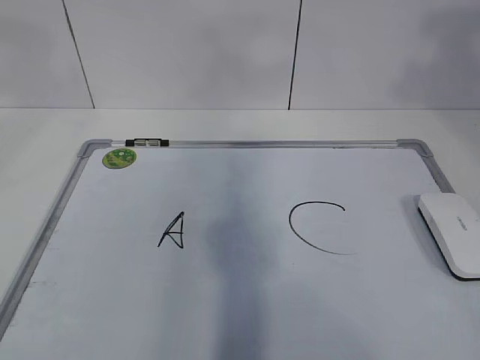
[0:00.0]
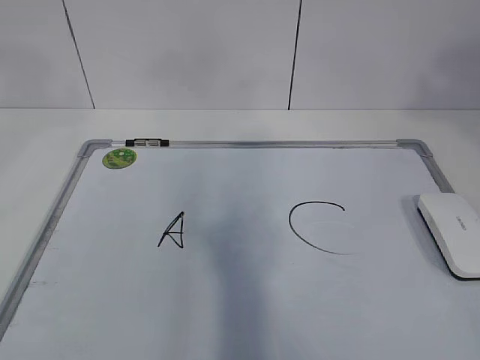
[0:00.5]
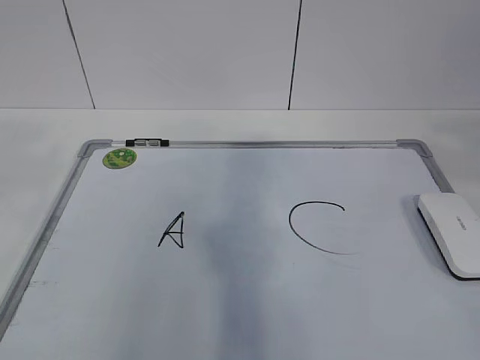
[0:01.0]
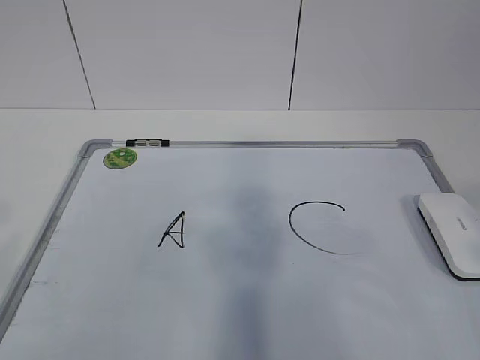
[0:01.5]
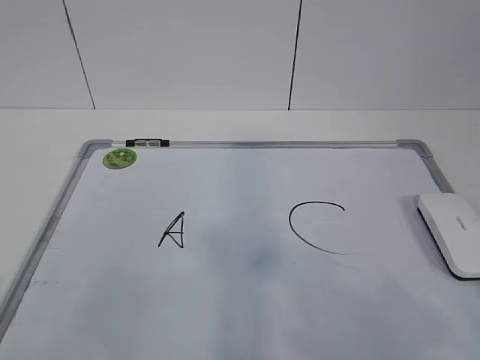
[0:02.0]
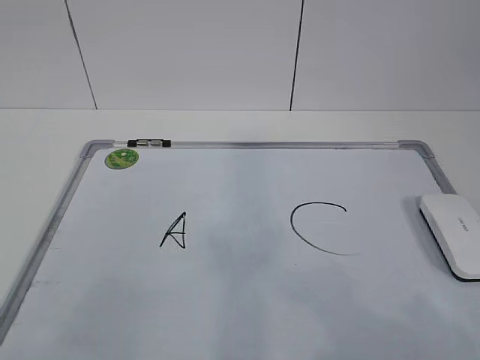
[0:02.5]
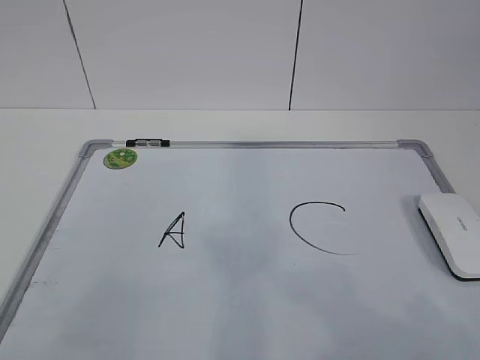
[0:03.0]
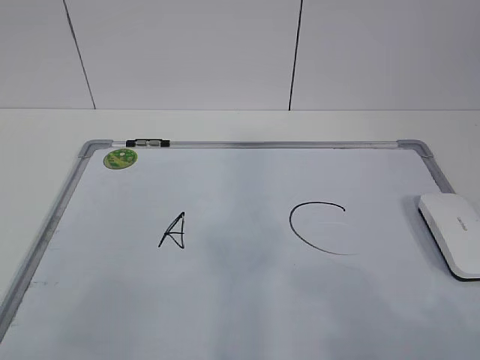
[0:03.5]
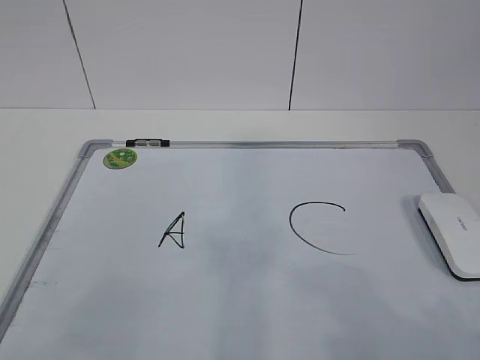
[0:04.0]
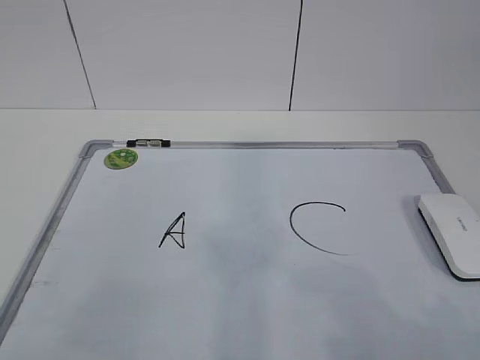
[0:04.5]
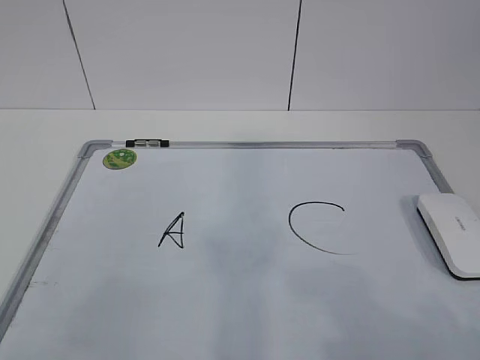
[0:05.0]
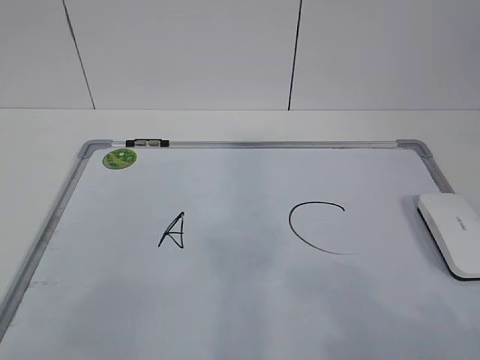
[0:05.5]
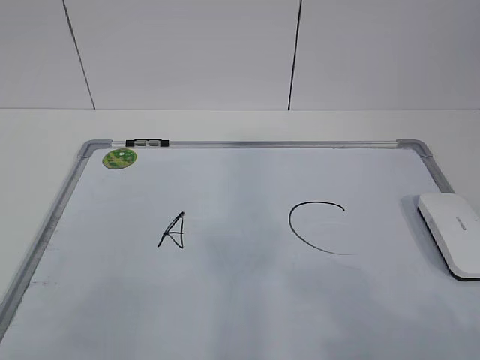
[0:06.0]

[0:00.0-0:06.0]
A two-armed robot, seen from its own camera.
Task of the whole recording: pick up the eraser on the blackboard and erase the letter "B".
0:00.0 to 0:02.0: Both grippers move backward and downward, about 30 cm.
0:04.0 to 0:06.0: Both grippers stay put.

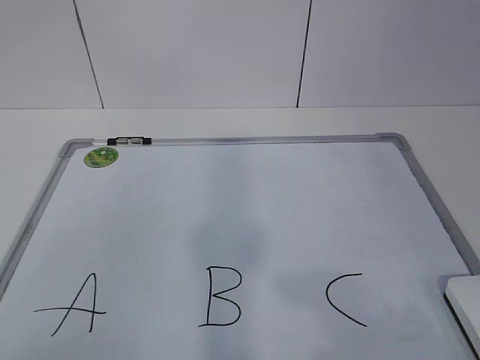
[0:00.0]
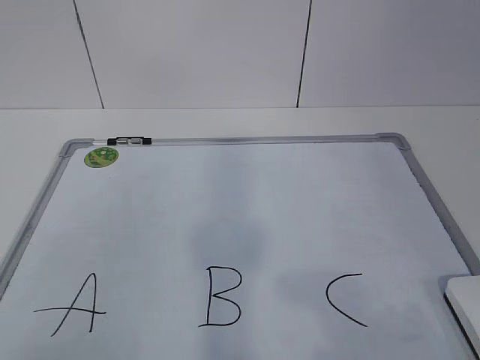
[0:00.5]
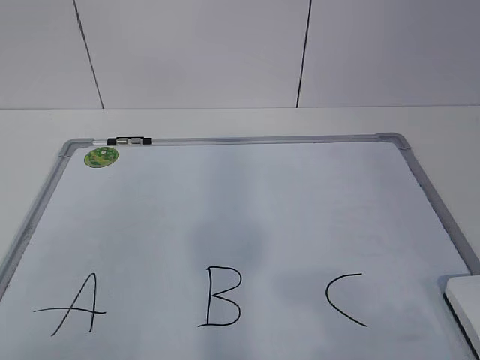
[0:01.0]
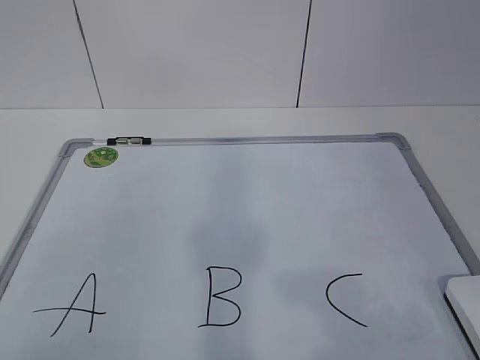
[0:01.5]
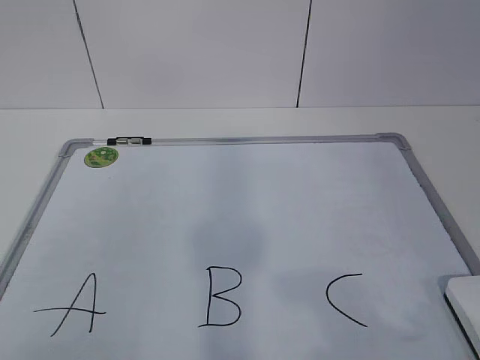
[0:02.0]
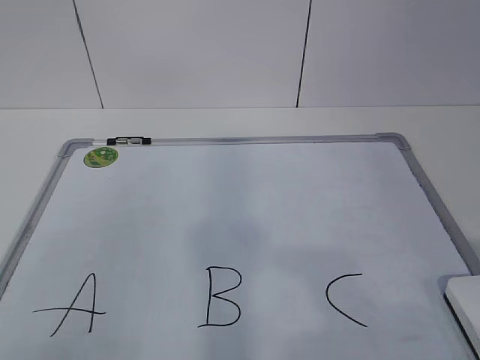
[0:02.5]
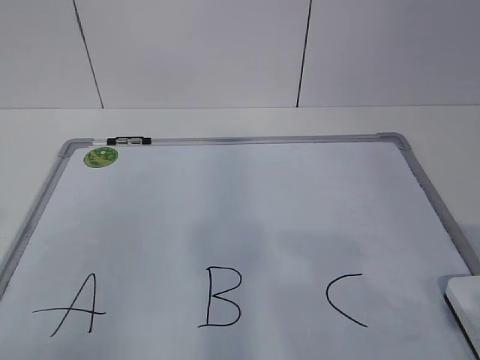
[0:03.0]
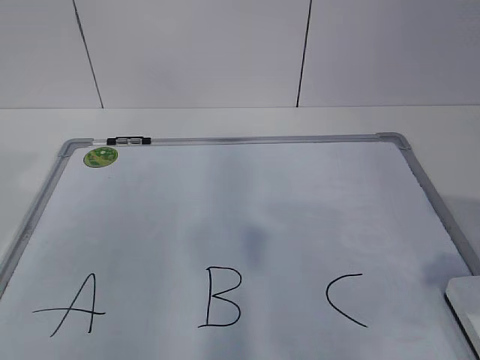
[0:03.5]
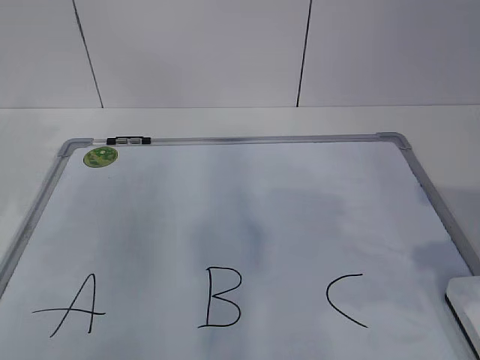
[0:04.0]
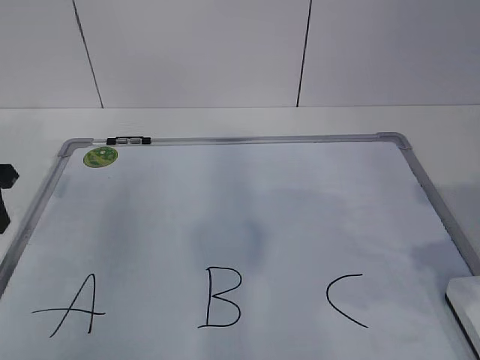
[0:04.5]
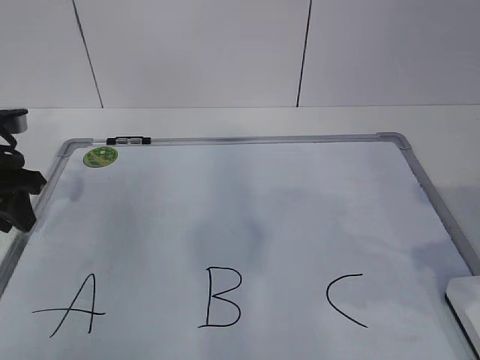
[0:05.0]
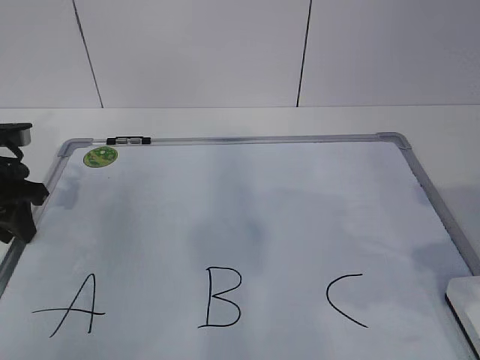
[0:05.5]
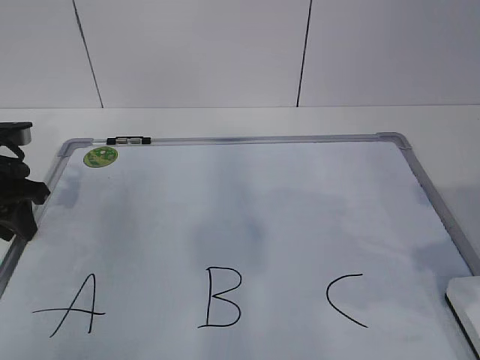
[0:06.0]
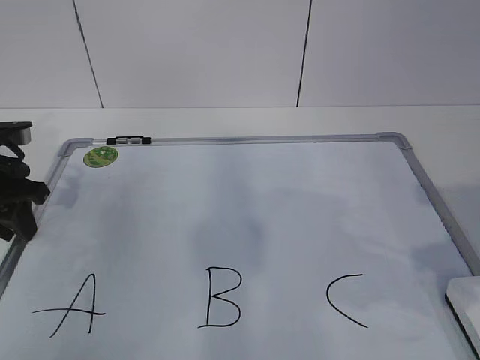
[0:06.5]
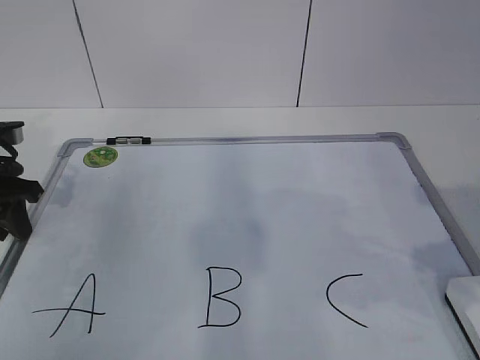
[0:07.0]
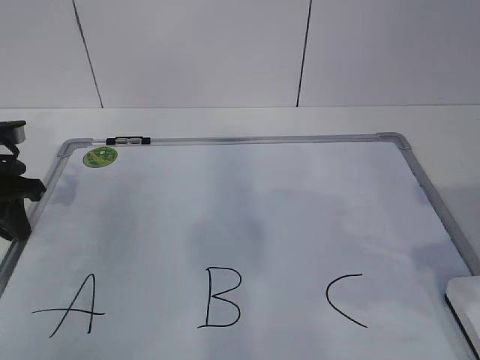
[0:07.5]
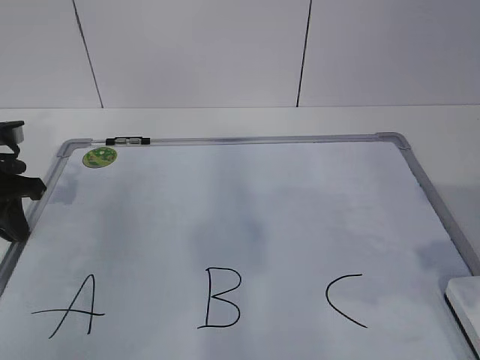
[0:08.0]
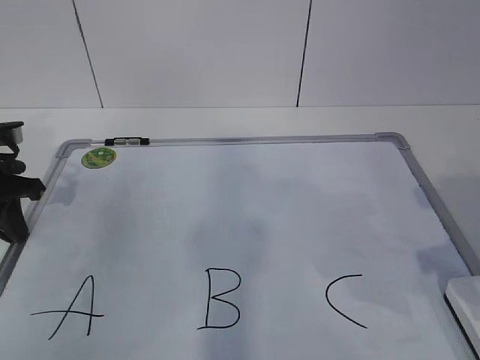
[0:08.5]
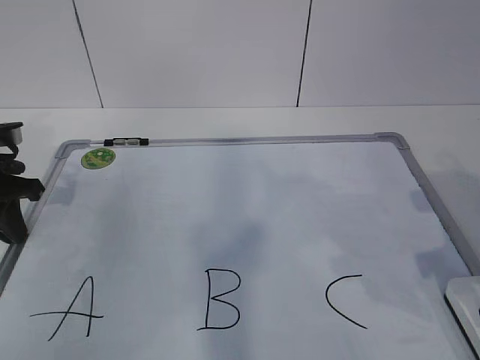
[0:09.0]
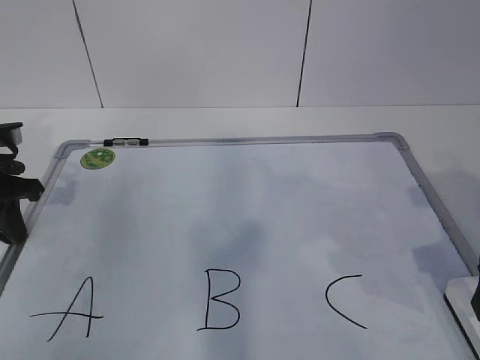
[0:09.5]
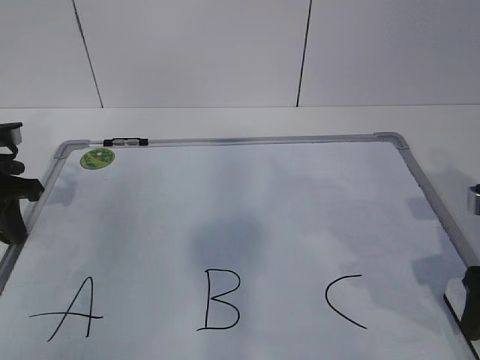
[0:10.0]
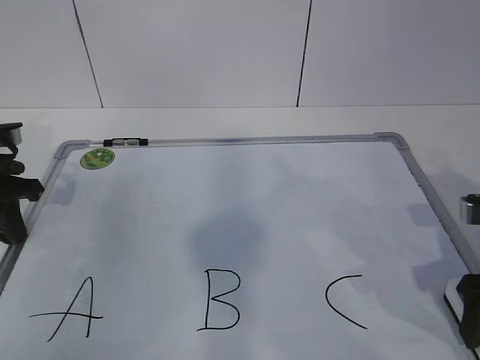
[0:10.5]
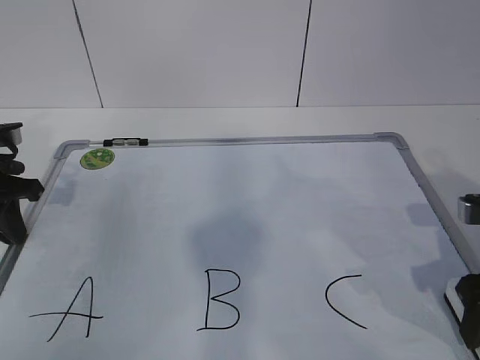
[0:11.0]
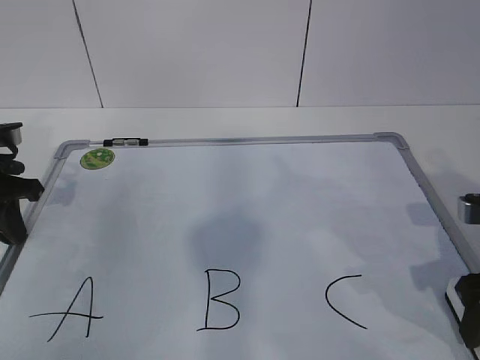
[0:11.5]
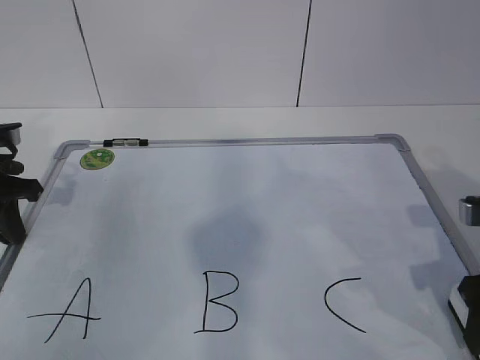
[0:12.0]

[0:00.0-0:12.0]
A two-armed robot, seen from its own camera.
Task of the whole recording: pick up the eraser on the blackboard and erase the letter "B".
Step, 0:00.0 to 0:06.5: Hold the drawing board steady with your left hand.
0:02.0 to 0:04.0: The left gripper shifts roughly 30 cm forward. The right gripper goes approximately 15 cm forward.
0:04.0 to 0:06.0: The left gripper shifts approximately 10 cm downward and forward.
0:06.0 to 0:08.0: The left gripper closes.
0:08.0 to 0:10.0: The right gripper goes roughly 10 cm downward and forward.
0:10.0 to 0:12.0: The grippers stay close to where they were, moving slightly.

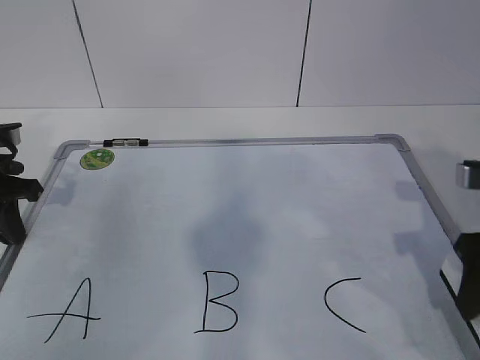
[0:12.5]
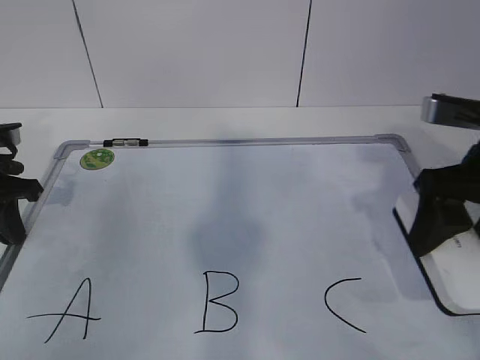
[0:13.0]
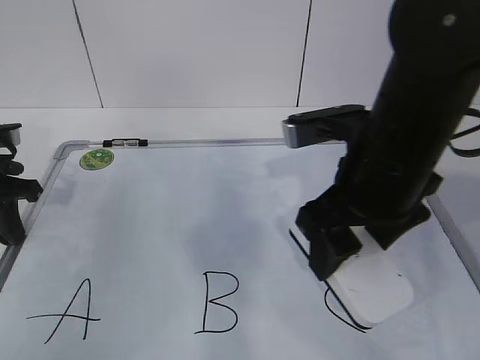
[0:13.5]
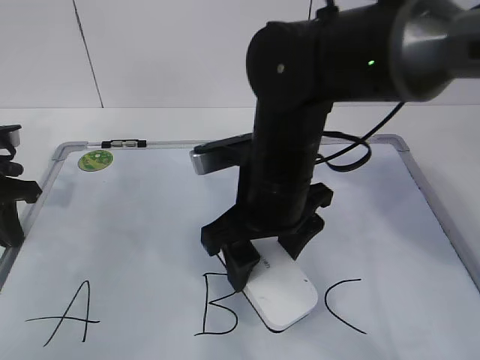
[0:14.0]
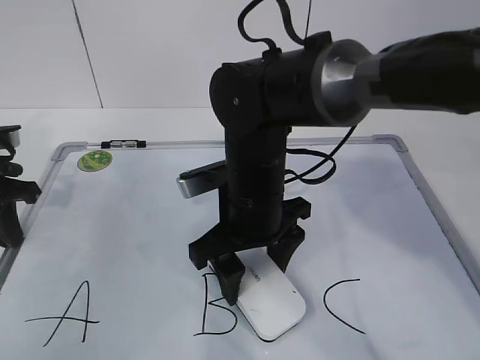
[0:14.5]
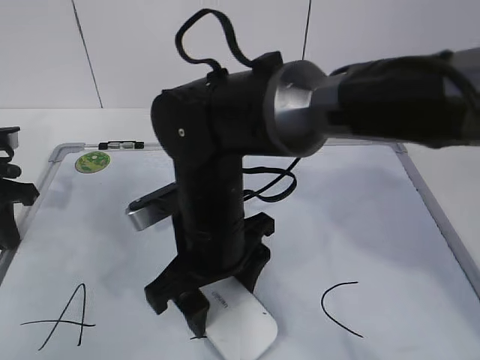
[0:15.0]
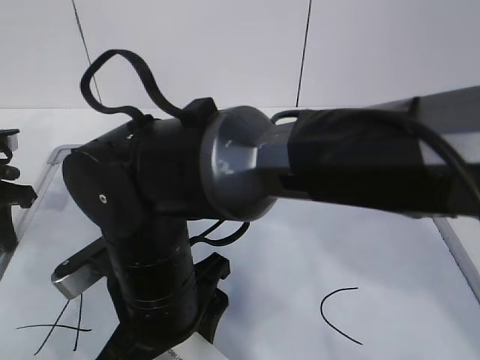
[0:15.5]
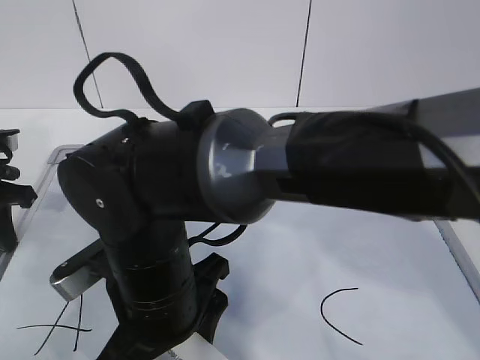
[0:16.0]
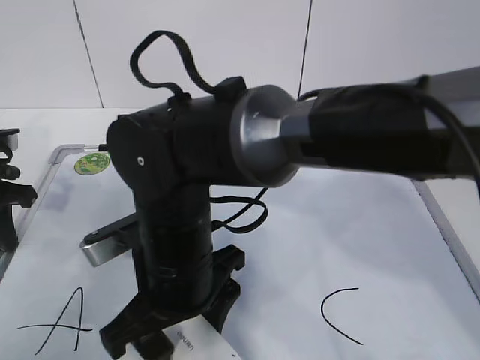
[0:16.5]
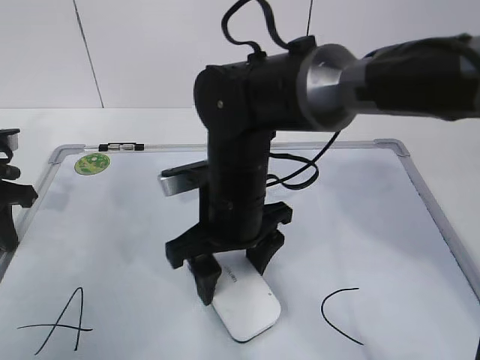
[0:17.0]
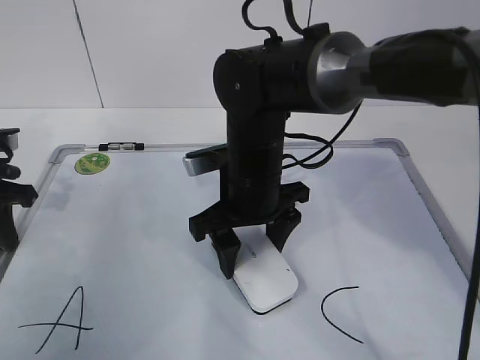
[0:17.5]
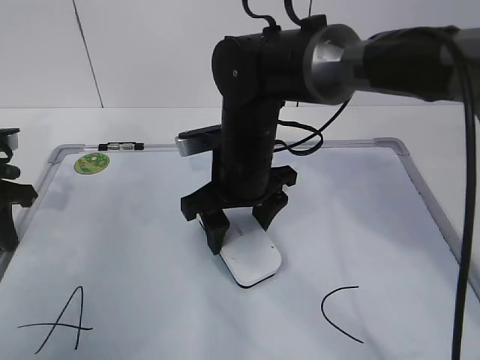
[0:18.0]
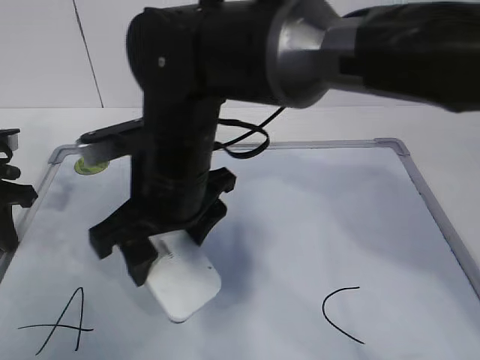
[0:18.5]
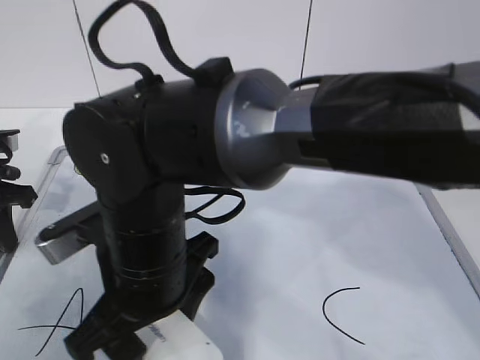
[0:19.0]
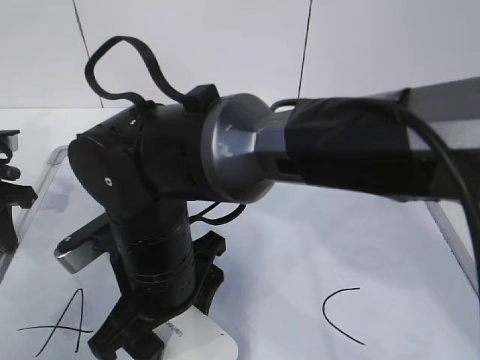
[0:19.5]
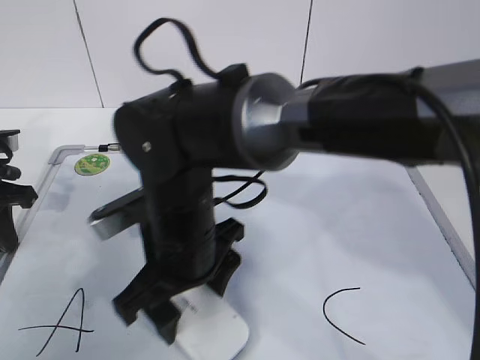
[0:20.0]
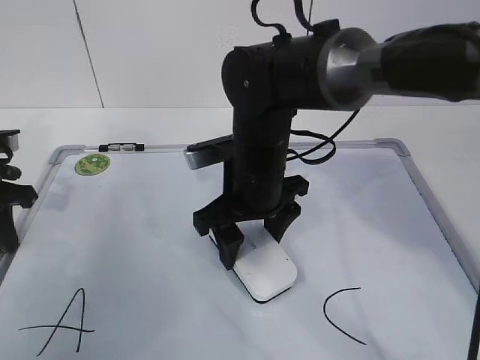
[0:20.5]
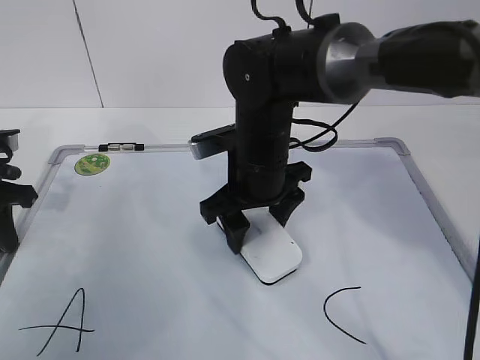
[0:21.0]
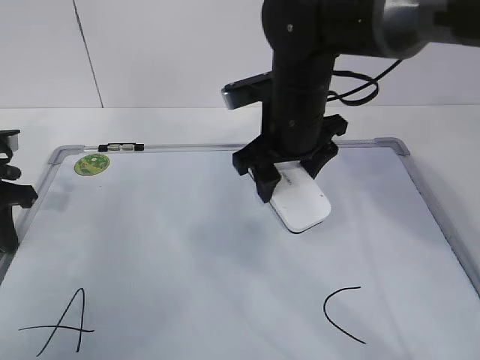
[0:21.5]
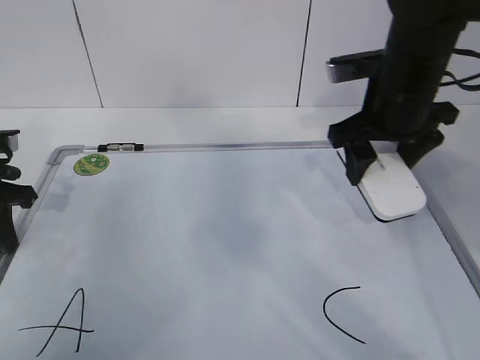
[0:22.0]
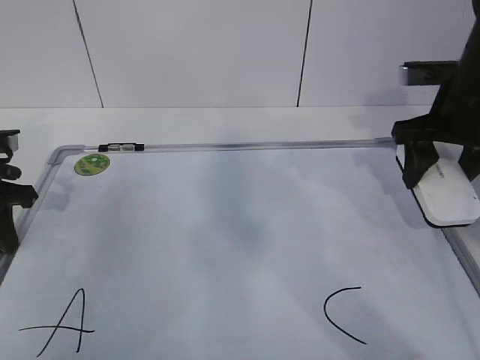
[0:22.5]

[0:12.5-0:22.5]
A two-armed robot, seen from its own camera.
Task of the whole recording: pick up the eraser on the blackboard and erase the letter "B".
Step, 0:12.5 to 0:17.0: Erase the letter B with your right hand.
Step, 0:18.0 to 0:20.0: Put down the eraser with your right hand.
0:12.5 to 0:14.5: The right gripper travels to the left by about 25 cm.
0:14.5 to 0:16.5: The right gripper travels backward and to the left by approximately 10 cm.
0:16.5 to 0:18.5: The right gripper heads upward and forward, covering roughly 10 cm.
0:18.5 to 0:20.5: The right gripper heads to the right and downward, covering roughly 10 cm.
0:20.5 to 0:22.5: The right gripper is displaced to the right by roughly 20 cm.
